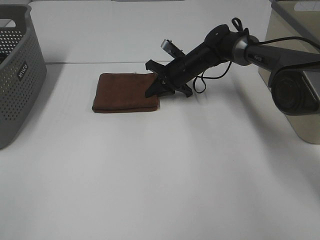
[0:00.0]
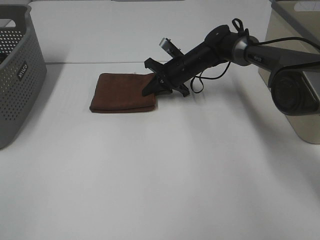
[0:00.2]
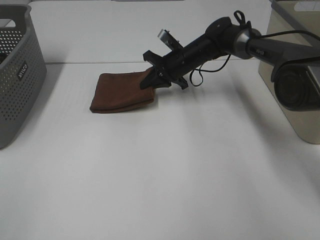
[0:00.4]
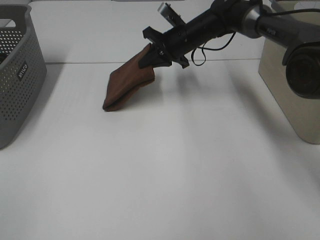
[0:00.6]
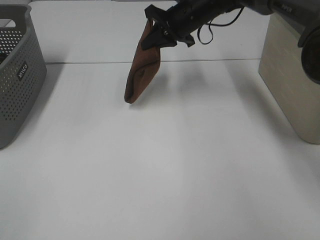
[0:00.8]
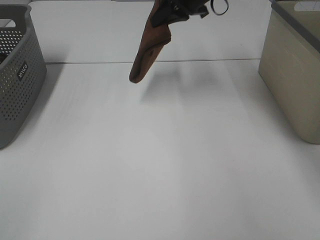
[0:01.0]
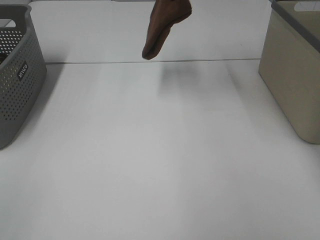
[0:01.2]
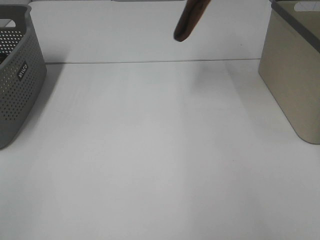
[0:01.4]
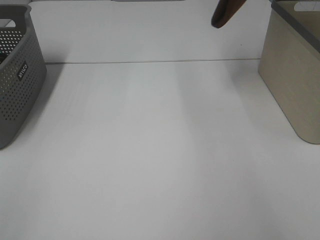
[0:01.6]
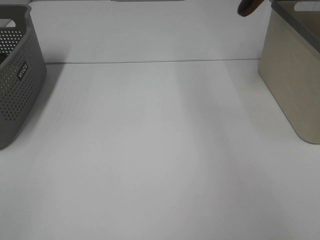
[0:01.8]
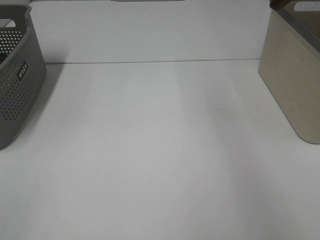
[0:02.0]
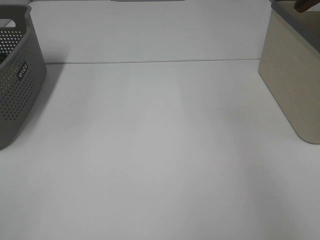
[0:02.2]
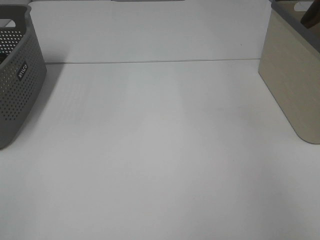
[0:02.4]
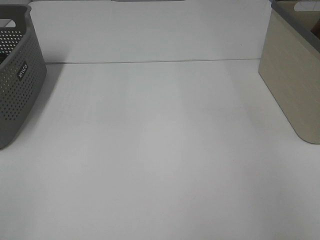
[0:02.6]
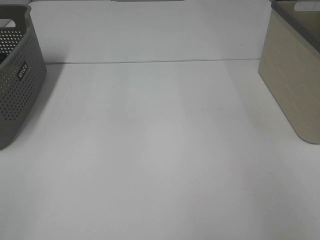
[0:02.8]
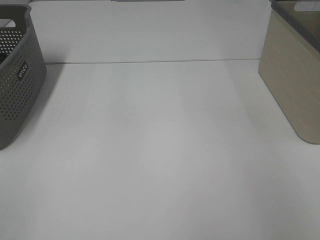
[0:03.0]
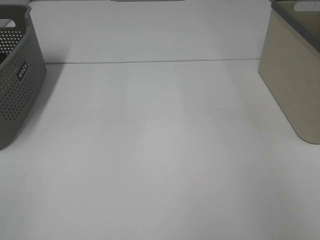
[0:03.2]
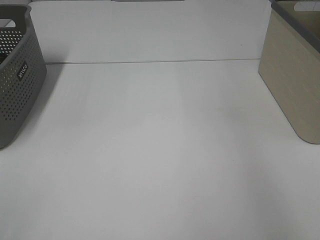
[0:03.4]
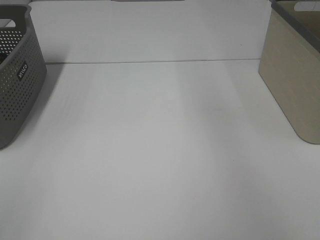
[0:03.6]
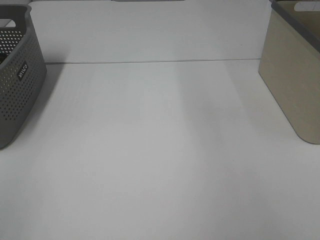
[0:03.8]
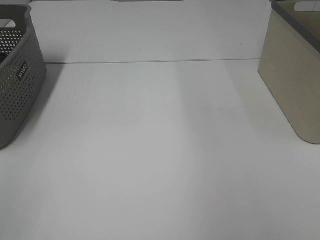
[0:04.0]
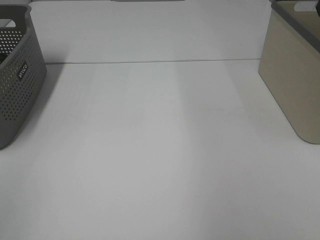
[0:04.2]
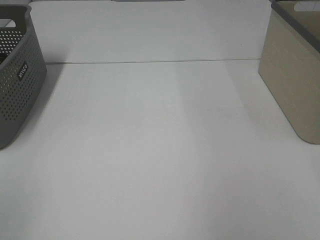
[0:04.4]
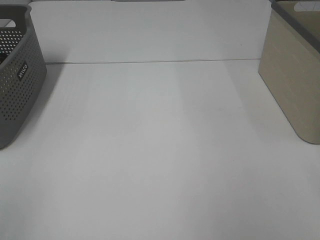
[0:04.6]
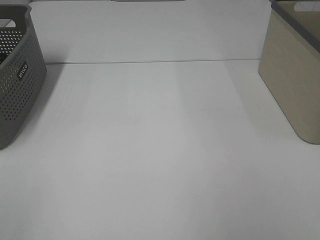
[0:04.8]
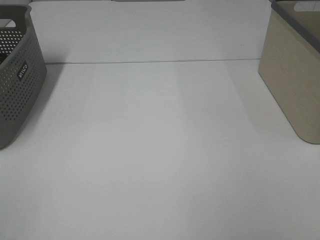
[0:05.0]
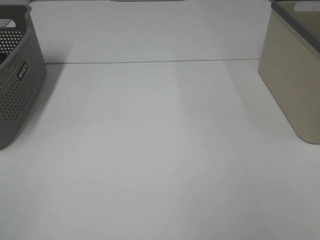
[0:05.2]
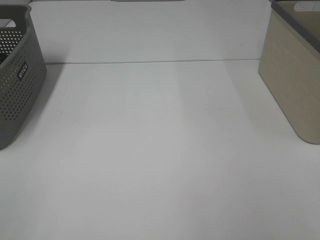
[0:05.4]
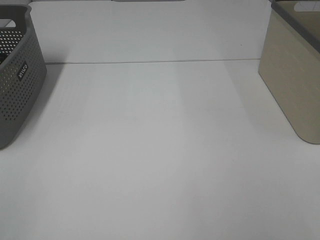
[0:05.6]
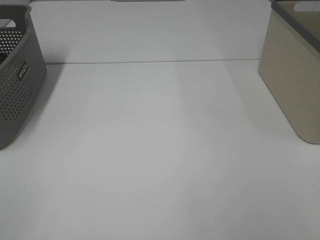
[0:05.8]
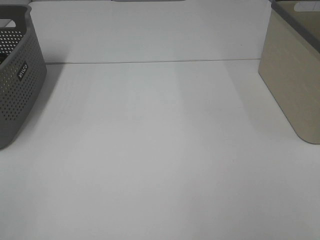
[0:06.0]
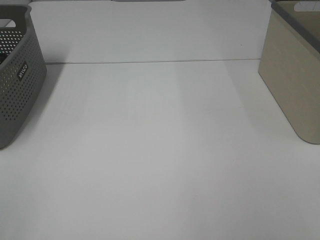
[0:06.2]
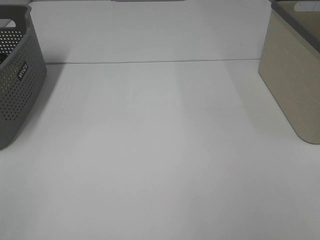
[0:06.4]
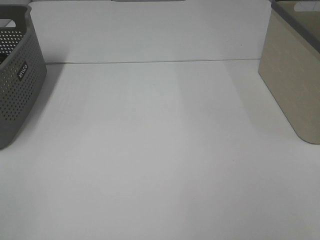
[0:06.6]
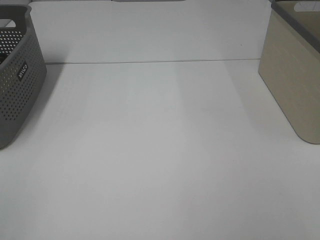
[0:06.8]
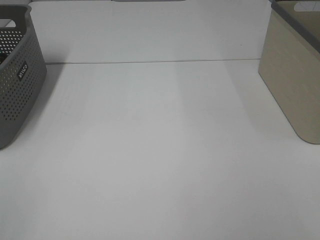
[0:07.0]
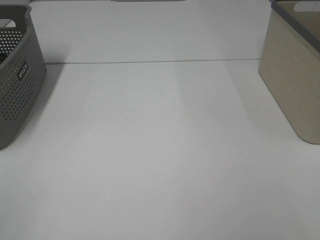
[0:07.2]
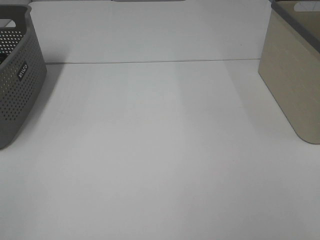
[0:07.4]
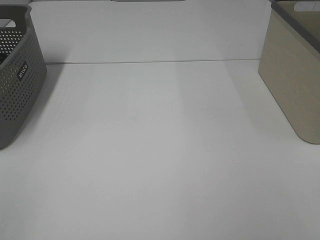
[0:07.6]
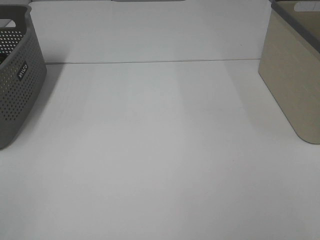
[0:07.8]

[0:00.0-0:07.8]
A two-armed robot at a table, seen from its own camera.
Step, 0:00.2 to 0:03.0: Right hand: place the brown towel in right basket.
0:00.0 to 0:01.6: The right gripper goes approximately 35 cm upward and to the right.
0:01.6 to 0:03.2: The right gripper goes roughly 20 cm to the right and downward, and opens.

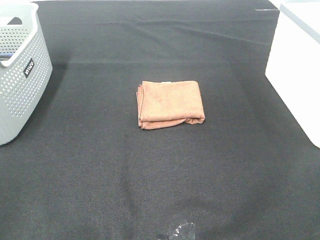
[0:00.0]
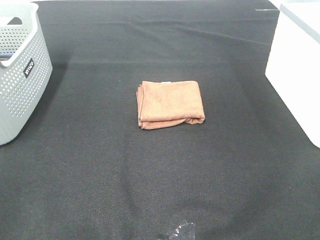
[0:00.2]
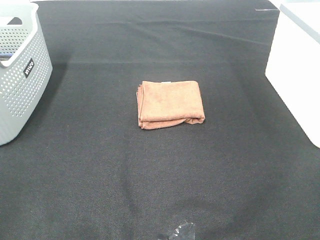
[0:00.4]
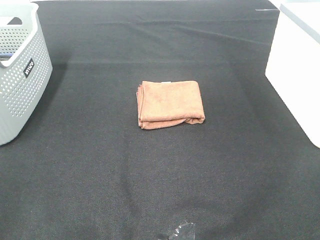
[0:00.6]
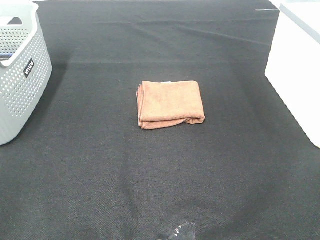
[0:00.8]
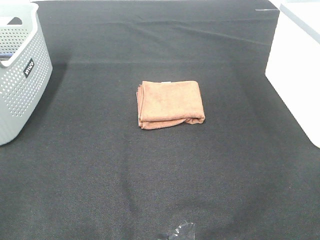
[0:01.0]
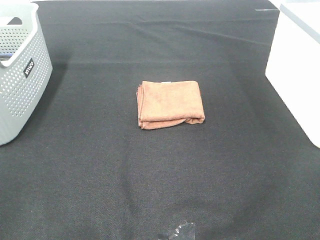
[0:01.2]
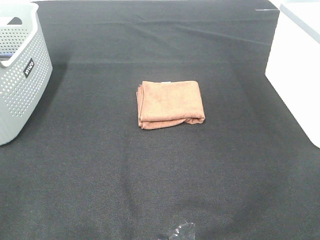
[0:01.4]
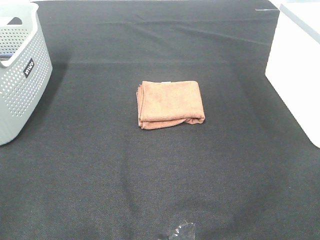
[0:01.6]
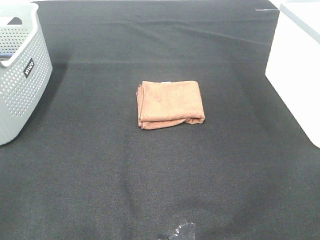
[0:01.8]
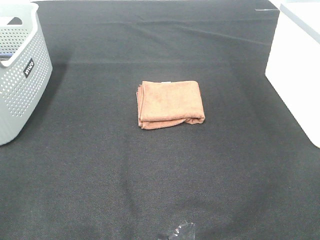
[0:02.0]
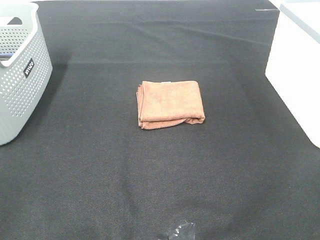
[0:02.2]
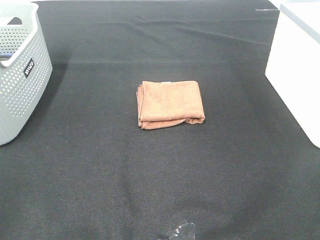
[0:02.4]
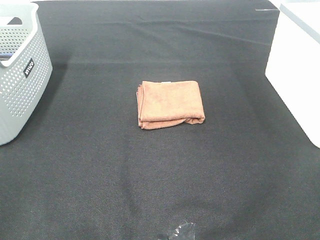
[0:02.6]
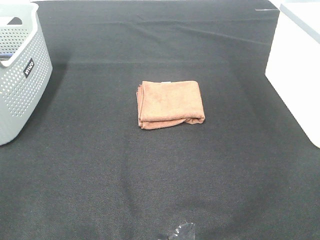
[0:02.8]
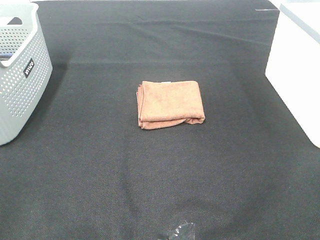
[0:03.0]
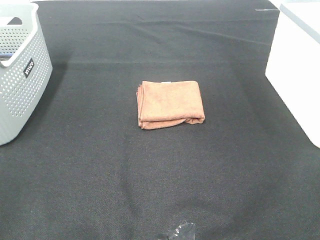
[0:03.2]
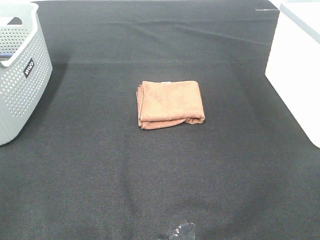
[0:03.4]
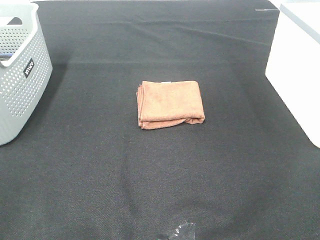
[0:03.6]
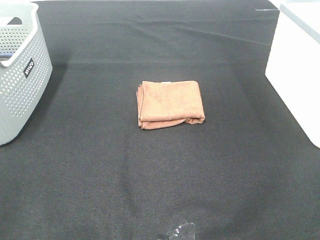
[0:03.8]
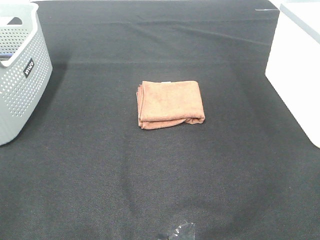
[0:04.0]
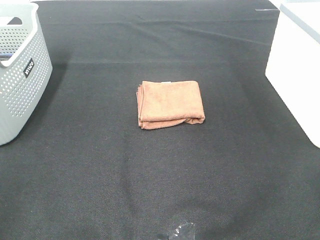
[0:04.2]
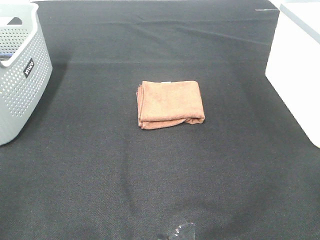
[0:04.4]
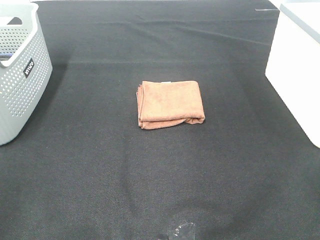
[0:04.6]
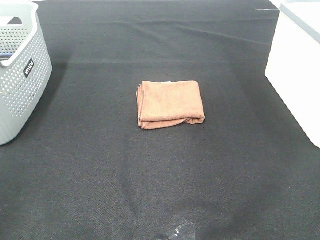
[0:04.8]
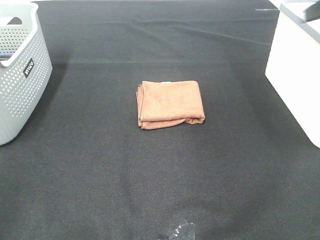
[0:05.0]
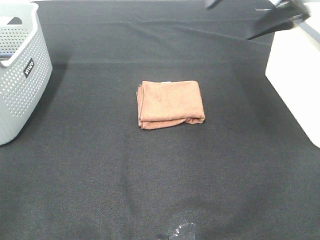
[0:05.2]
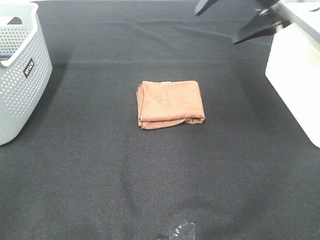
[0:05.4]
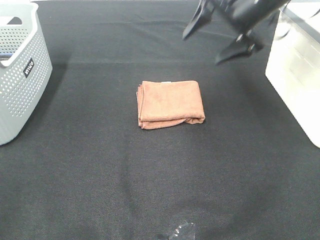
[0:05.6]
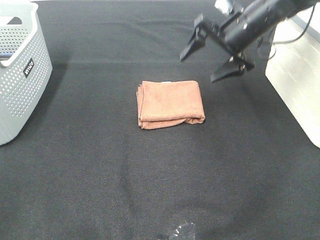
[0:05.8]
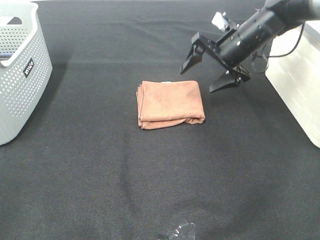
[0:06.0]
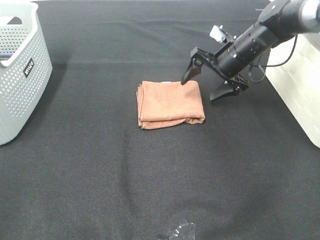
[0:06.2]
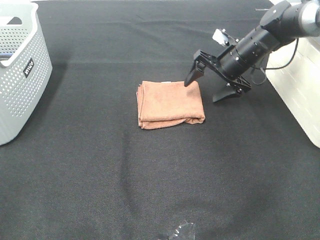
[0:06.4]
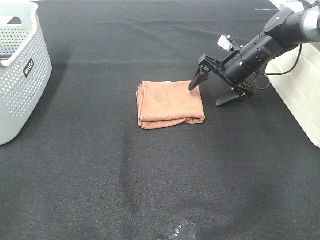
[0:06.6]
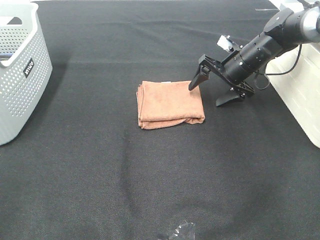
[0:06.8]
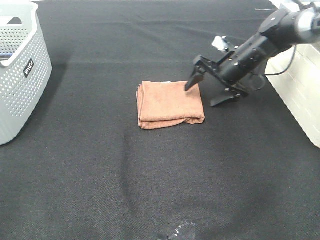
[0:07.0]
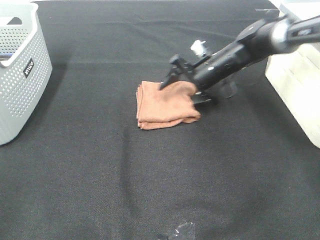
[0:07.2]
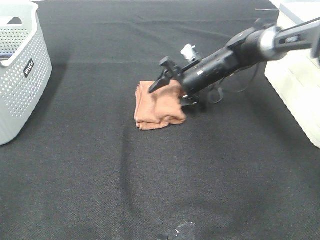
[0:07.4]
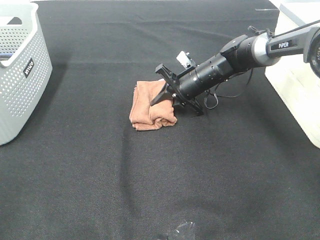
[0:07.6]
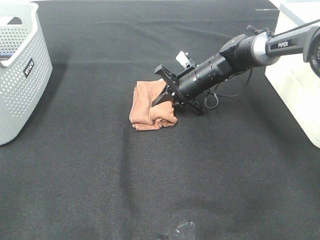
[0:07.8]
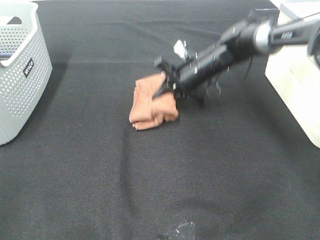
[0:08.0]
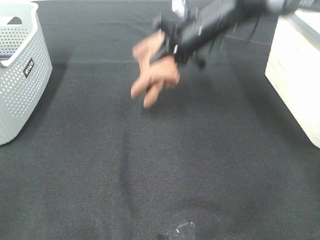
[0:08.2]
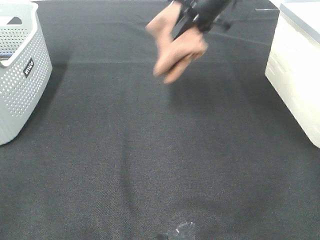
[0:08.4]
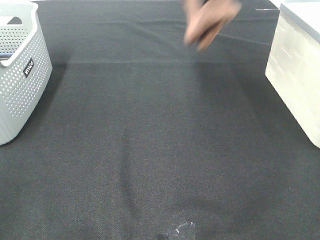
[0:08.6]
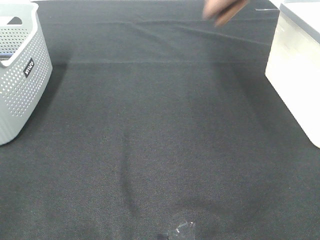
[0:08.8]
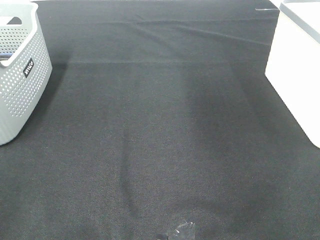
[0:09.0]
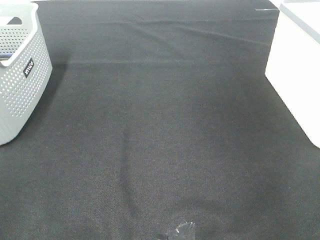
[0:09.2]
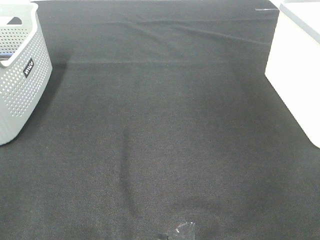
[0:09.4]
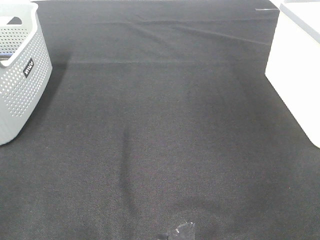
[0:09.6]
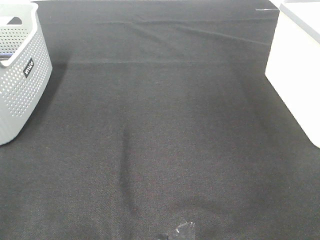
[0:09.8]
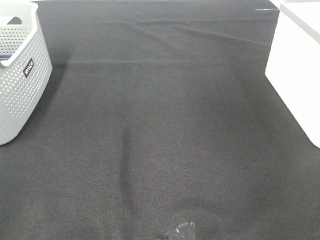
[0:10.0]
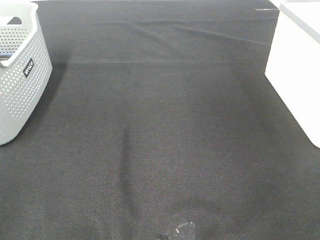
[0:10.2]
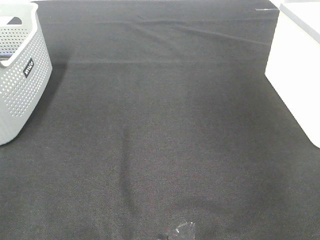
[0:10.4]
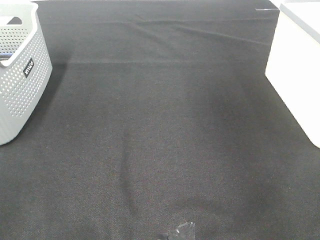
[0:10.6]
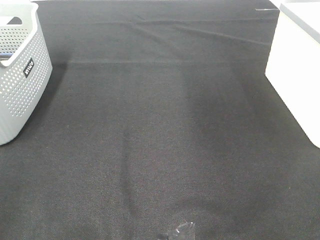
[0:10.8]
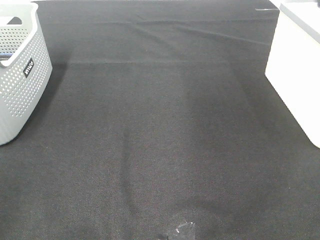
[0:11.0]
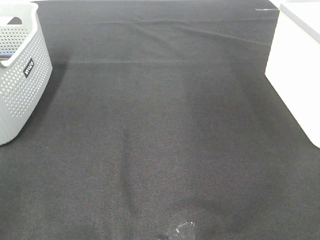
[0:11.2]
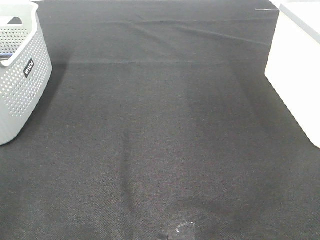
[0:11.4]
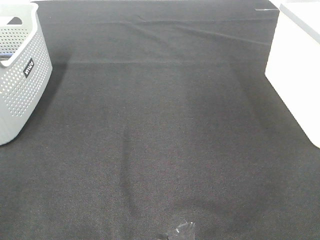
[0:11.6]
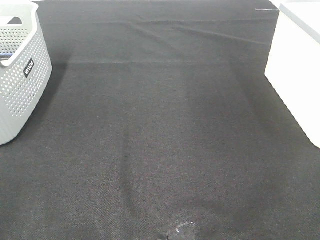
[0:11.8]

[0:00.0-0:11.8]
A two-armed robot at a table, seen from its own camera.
Step, 0:00.0 to 0:07.6: Right hand: grab the folded brown towel.
Step, 0:07.8 to 0:10.2: Right hand: place the brown towel in right basket.
0:00.0 to 0:03.0: Both grippers stay put.
0:04.4 to 0:06.0: The right gripper goes some 40 cm forward and downward.
0:06.0 to 0:07.4: The right gripper heads downward and to the left, covering approximately 10 cm.
0:07.4 to 0:08.8: The right gripper travels upward by some 35 cm, and closes up.
0:08.8 to 0:10.4: The right gripper heads to the right, covering approximately 20 cm, and opens up.

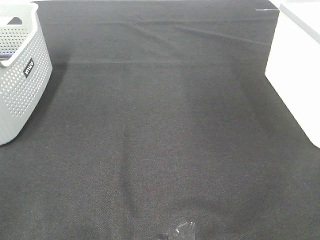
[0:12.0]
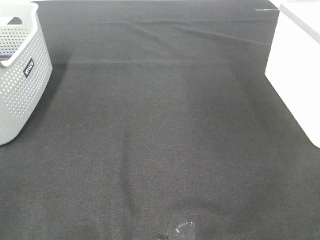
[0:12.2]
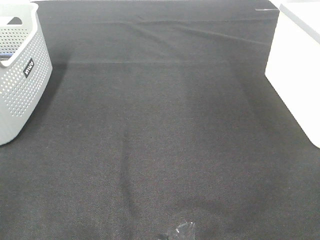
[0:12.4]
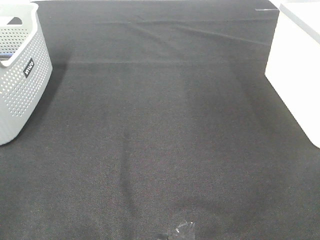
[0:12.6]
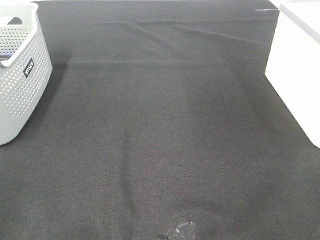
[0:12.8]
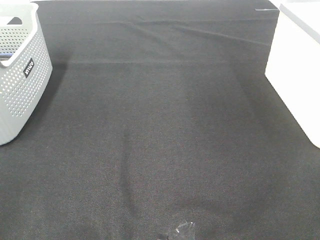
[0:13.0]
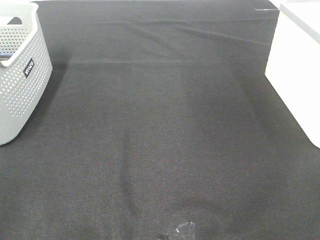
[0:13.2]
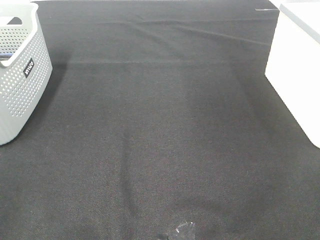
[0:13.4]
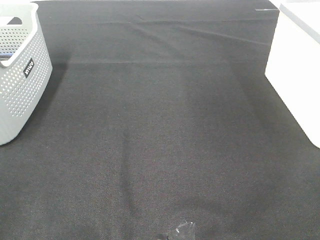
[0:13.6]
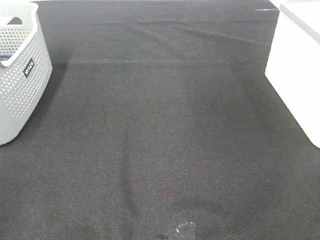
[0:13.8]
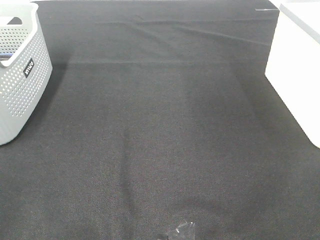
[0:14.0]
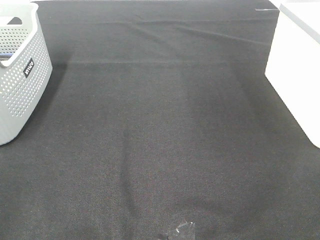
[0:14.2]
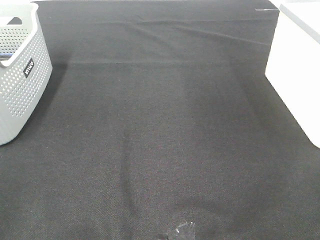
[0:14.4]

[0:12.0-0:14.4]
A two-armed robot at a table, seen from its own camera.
0:13.2 to 0:14.4: The two grippers keep their place.
